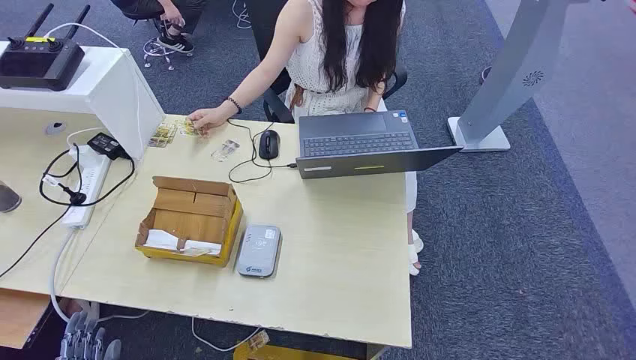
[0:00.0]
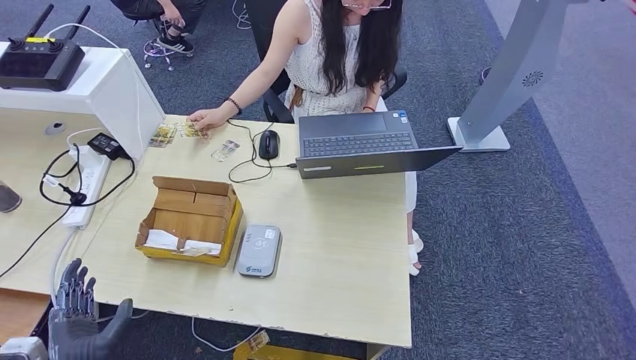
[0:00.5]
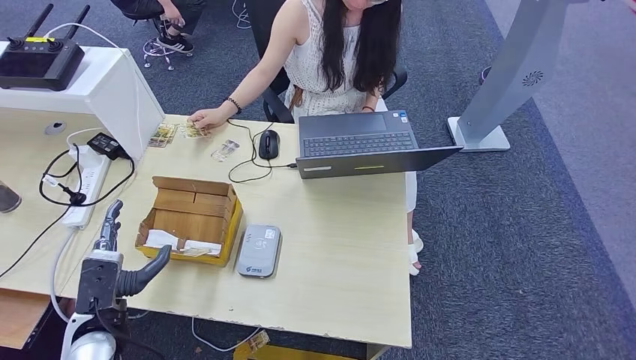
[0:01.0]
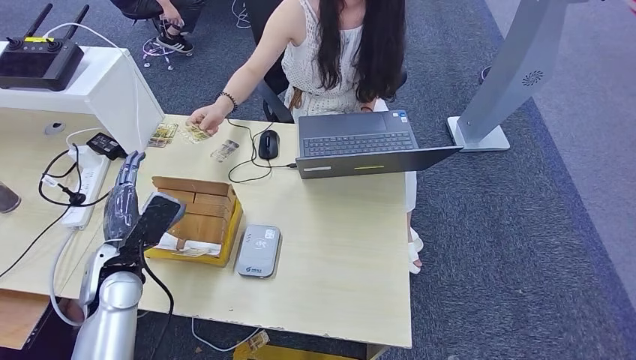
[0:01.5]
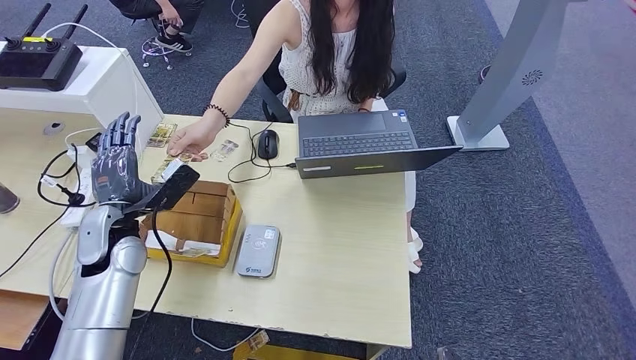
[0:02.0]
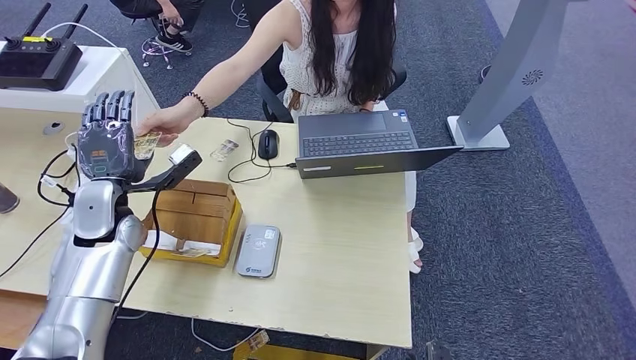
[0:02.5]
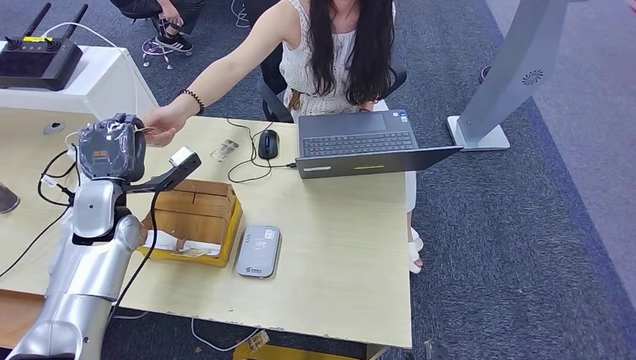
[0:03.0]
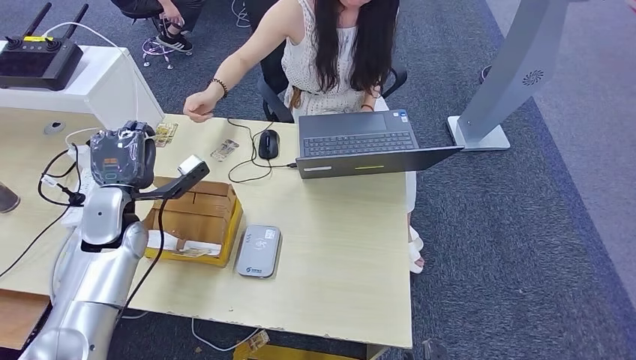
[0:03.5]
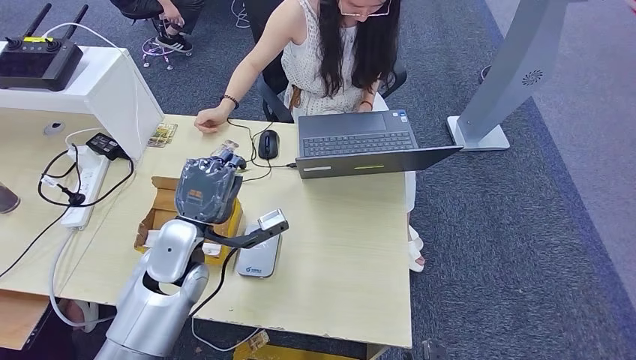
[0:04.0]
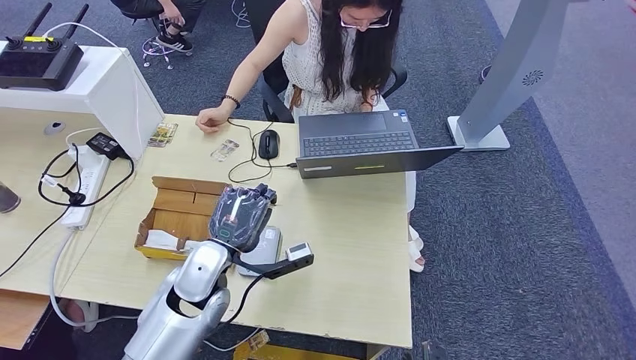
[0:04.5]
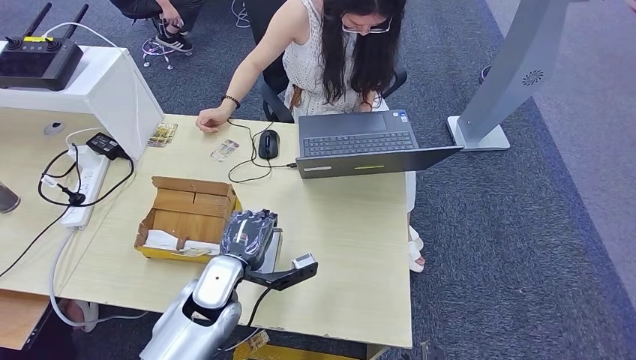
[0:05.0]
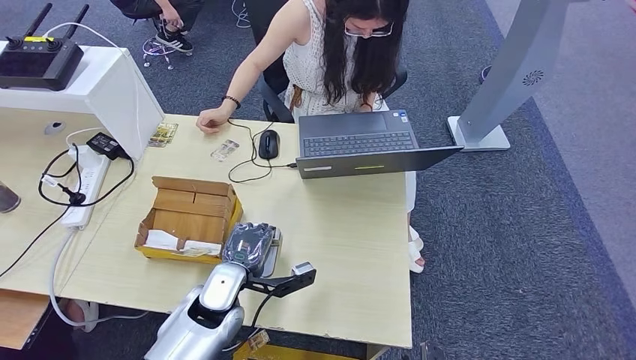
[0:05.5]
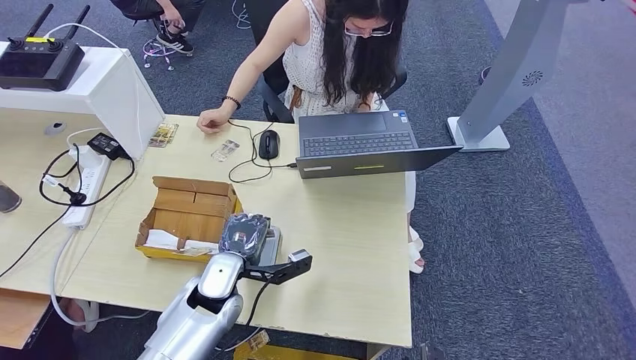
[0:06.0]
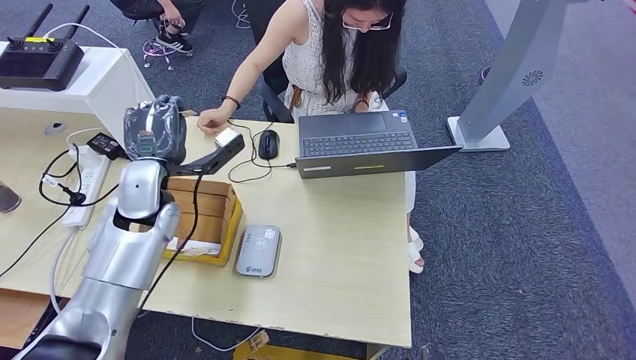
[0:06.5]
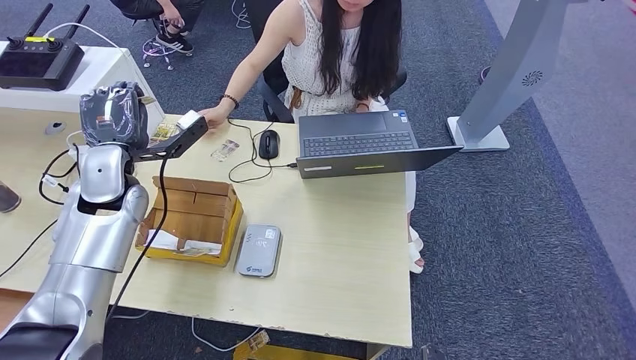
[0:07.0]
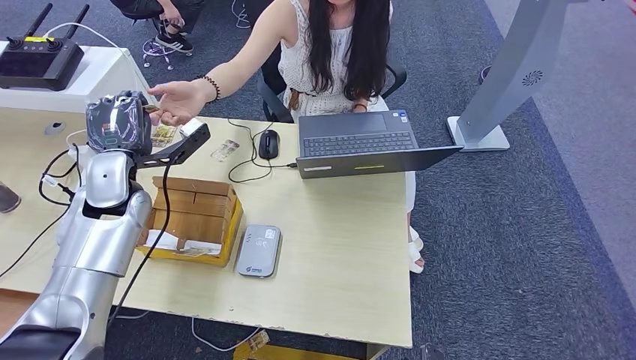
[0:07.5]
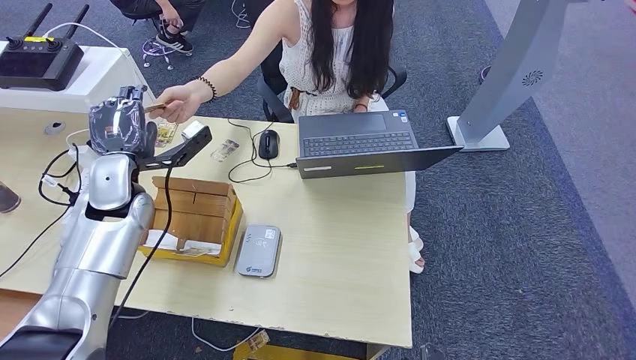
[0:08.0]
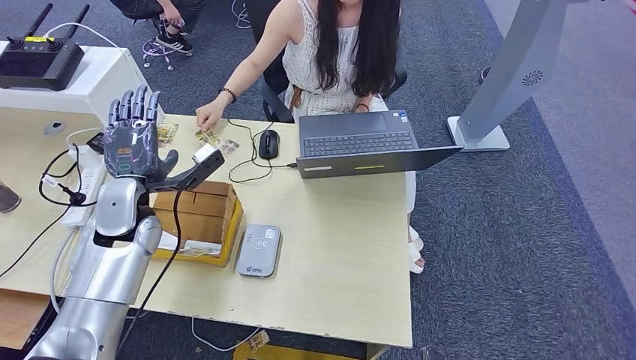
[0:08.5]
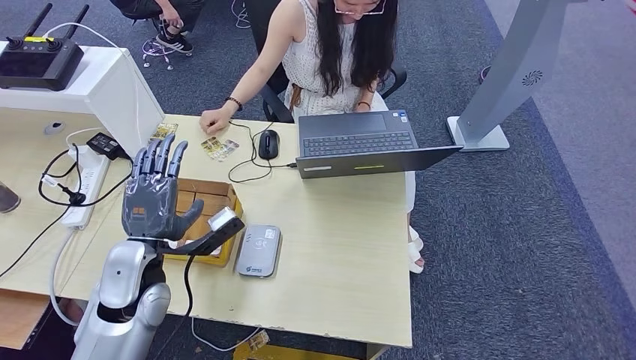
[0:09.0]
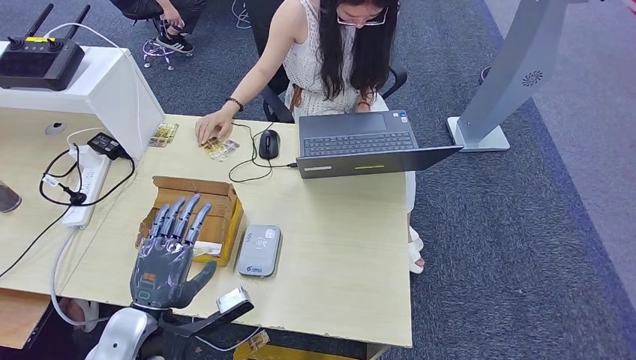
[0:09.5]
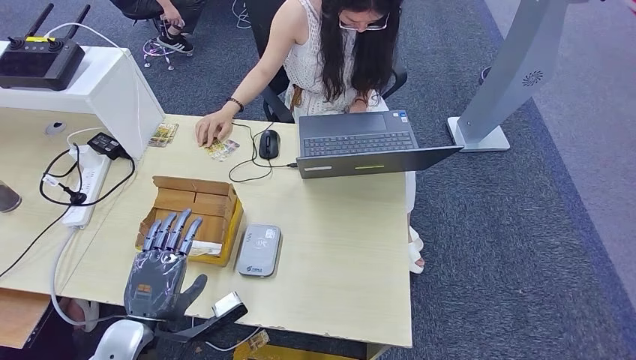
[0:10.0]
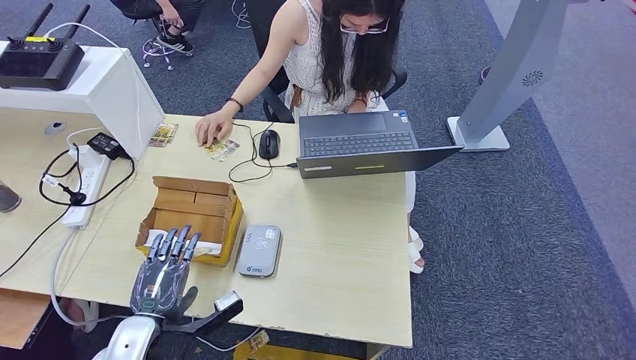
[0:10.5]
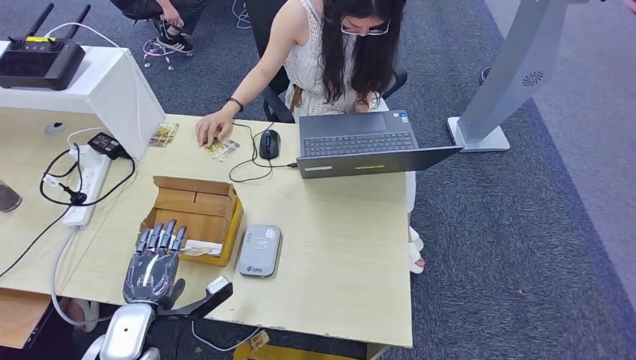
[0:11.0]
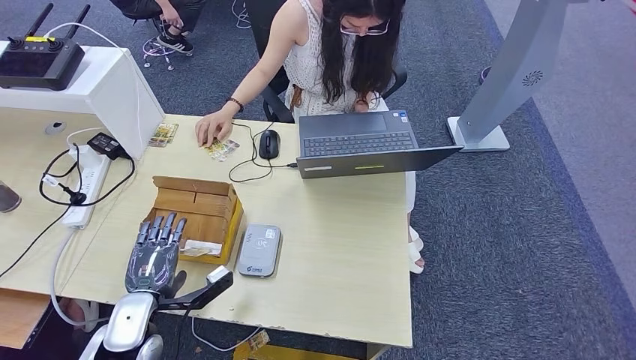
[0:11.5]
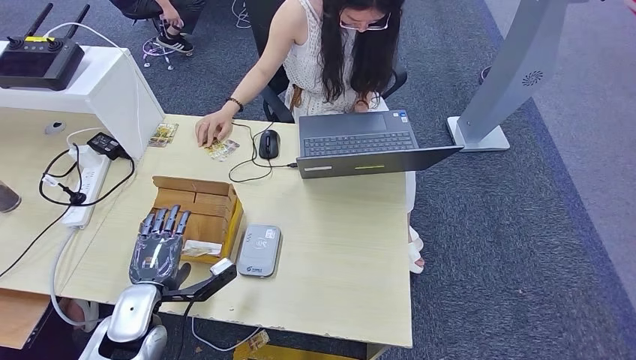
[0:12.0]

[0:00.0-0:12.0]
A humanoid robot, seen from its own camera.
Step, 0:00.0 to 0:02.5: Take the ID card from the person's hand.
Step, 0:03.5 to 0:06.0: Place the ID card on the card reader.
Step, 0:07.0 to 0:09.0: Hand the ID card to the person.
0:02.0 to 0:04.0: The left hand shifts about 10 cm to the right.
0:04.0 to 0:06.0: The left hand moves downward, some 10 cm.
0:08.0 to 0:10.0: The left hand moves backward and downward, some 25 cm.
0:10.0 to 0:12.0: The left hand is displaced forward by about 5 cm.

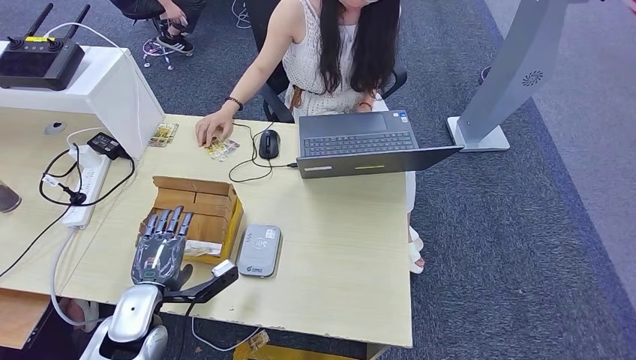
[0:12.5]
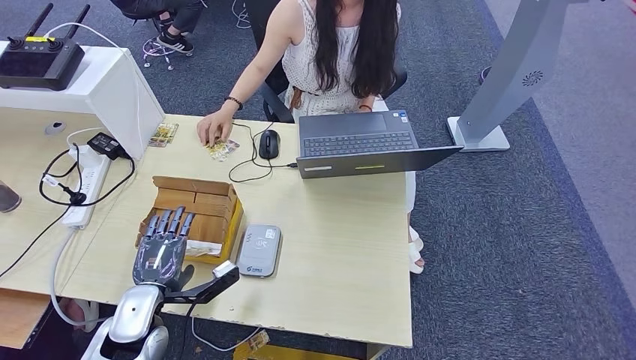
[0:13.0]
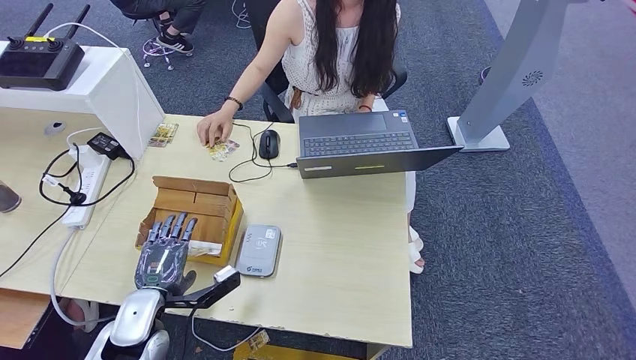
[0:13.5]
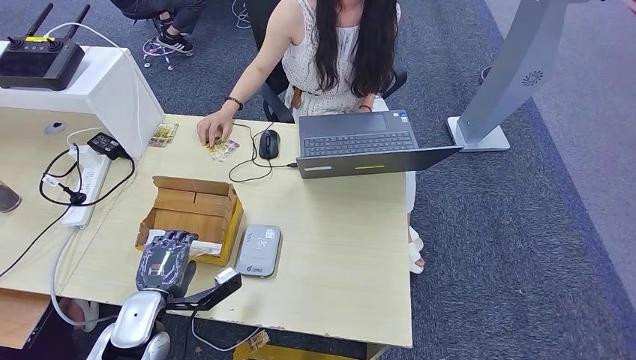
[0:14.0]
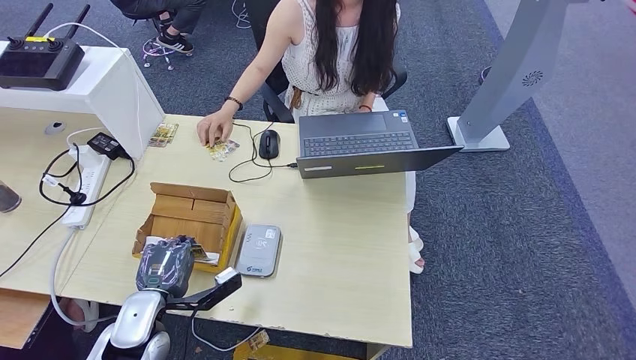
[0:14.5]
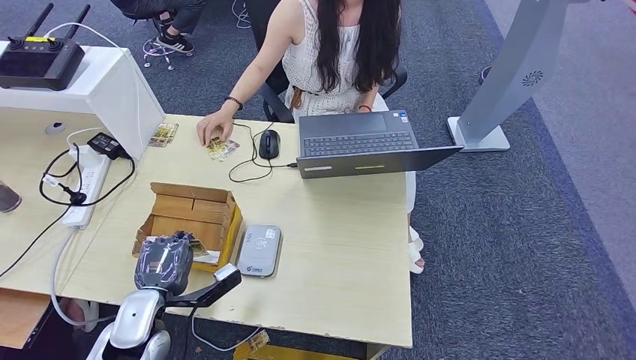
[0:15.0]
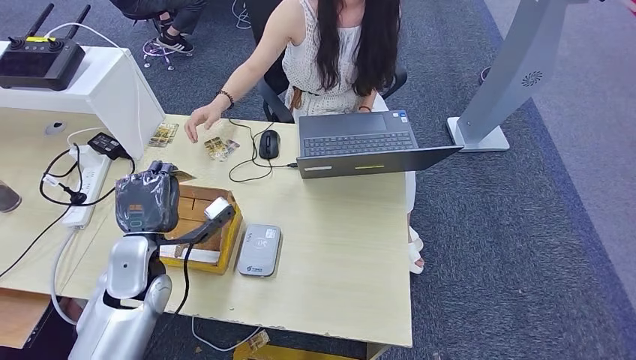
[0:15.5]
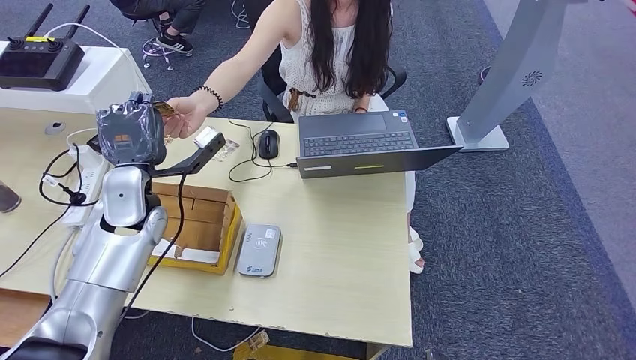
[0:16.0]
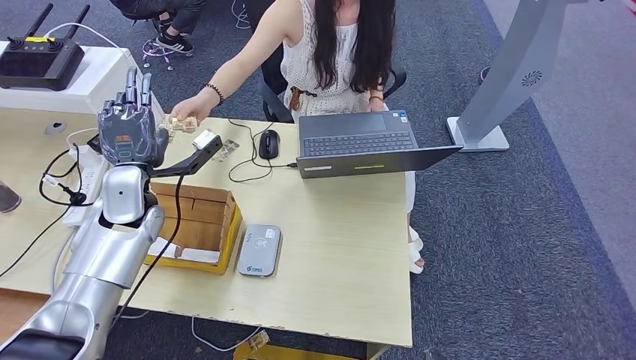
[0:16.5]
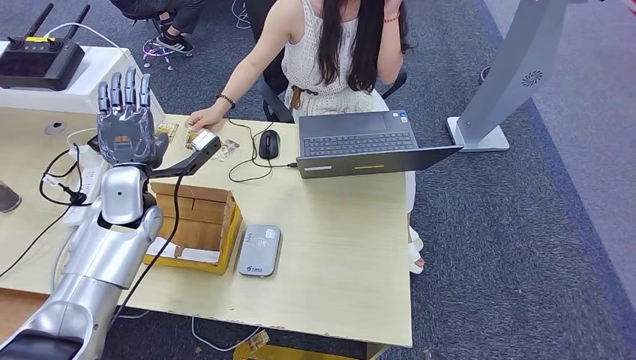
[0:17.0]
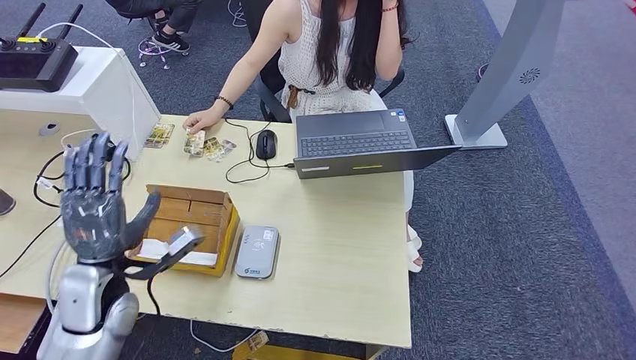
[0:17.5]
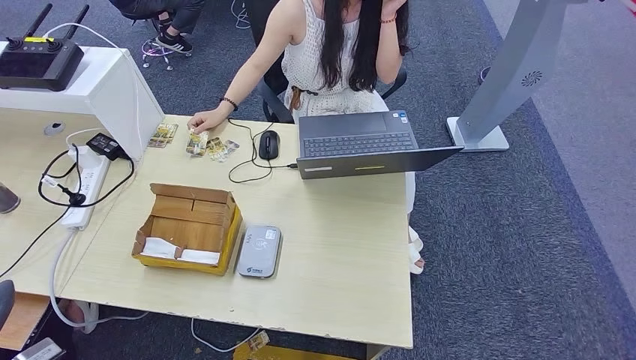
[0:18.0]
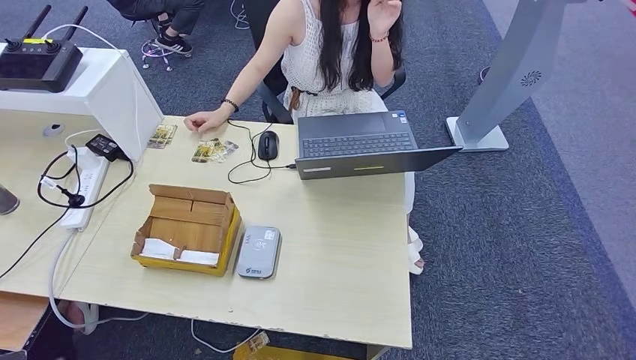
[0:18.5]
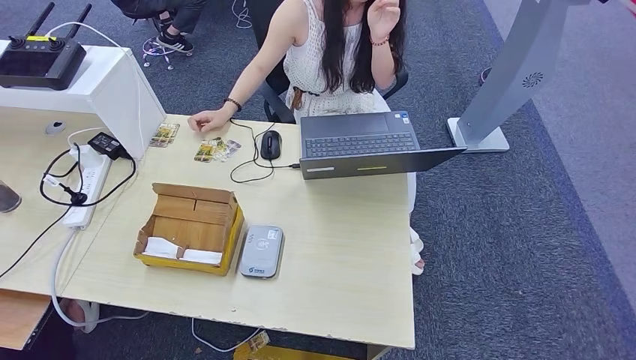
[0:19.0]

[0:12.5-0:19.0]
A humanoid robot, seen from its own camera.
Step, 0:12.5 to 0:15.0: Pick up the room key from the key card box.
Step, 0:16.0 to 0:19.0: Hand the room key to the person.
0:12.5 to 0:14.5: Both hands stay put.
0:14.5 to 0:17.0: The left hand is displaced forward and upward by about 25 cm.
0:17.0 to 0:19.0: The left hand is displaced backward and downward by roughly 50 cm, while the right hand moves some 5 cm.

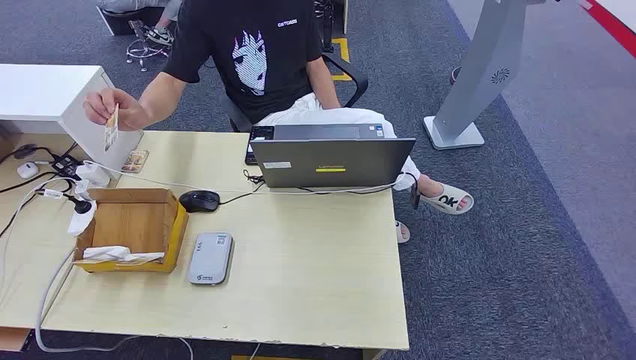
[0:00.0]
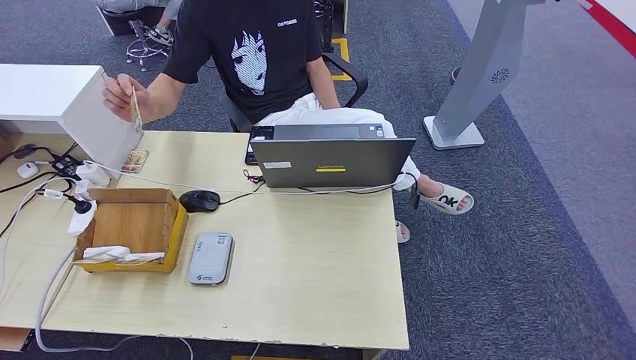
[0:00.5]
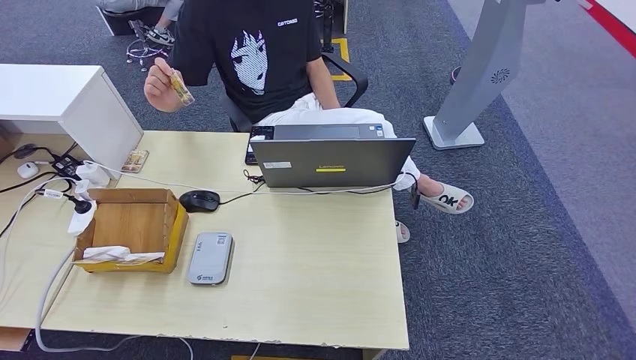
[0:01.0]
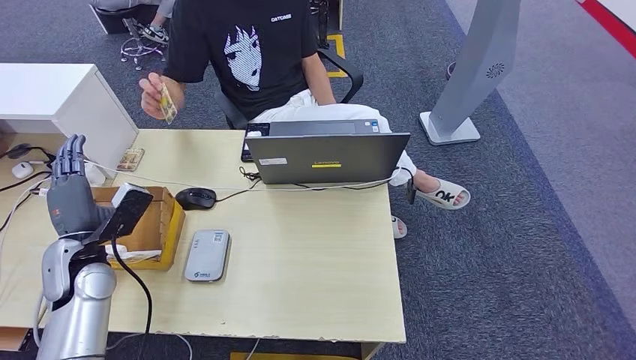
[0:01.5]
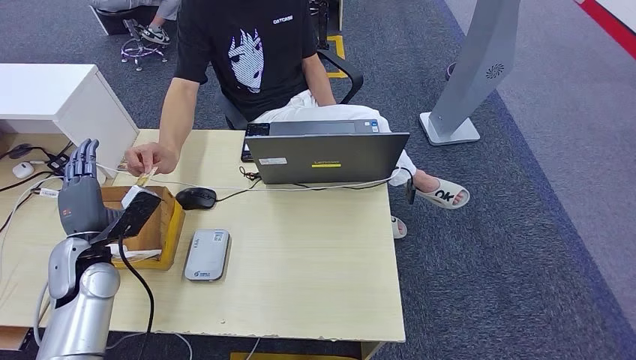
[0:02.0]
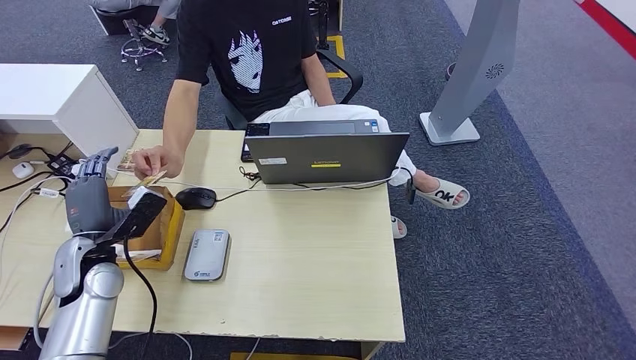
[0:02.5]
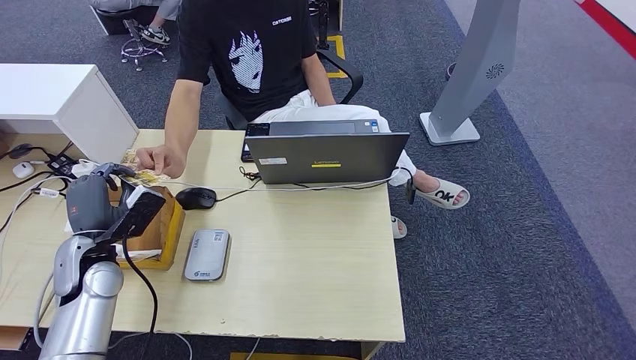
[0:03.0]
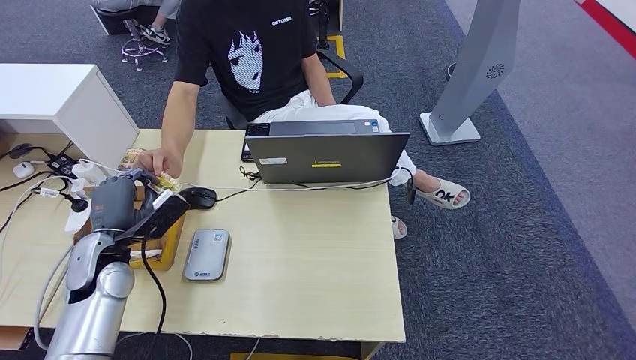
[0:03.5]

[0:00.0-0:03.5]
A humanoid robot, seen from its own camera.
0:02.0 to 0:03.5: The hands make only small movements.
